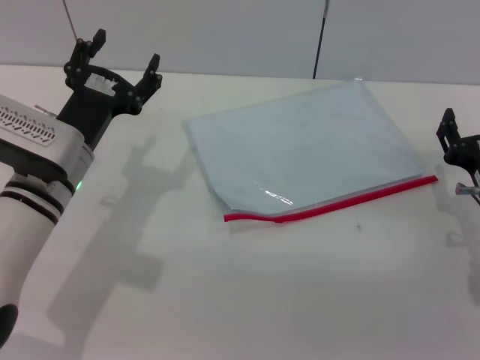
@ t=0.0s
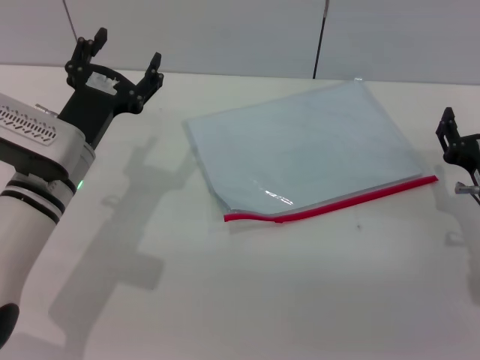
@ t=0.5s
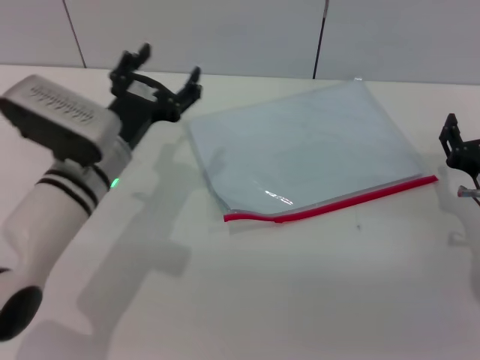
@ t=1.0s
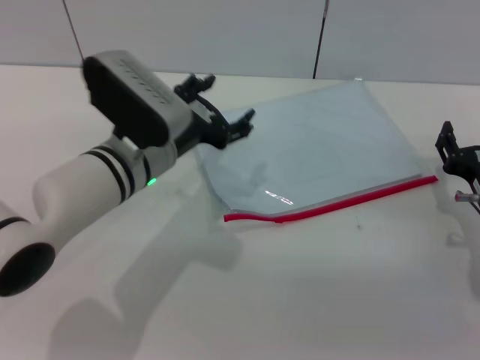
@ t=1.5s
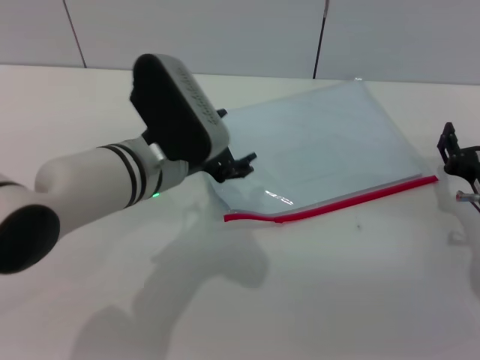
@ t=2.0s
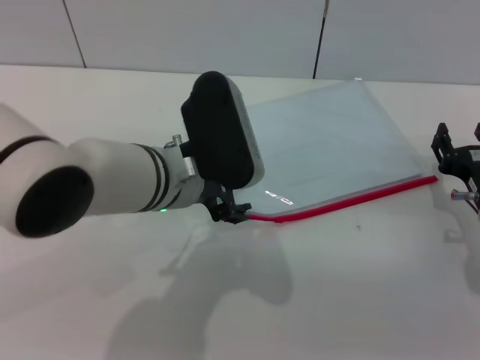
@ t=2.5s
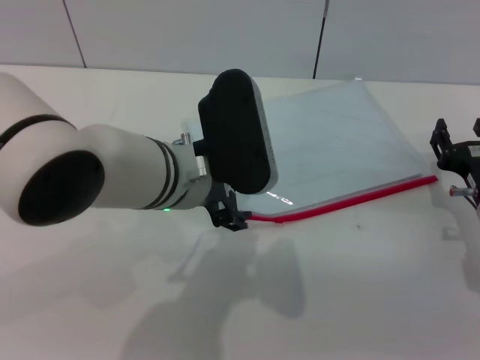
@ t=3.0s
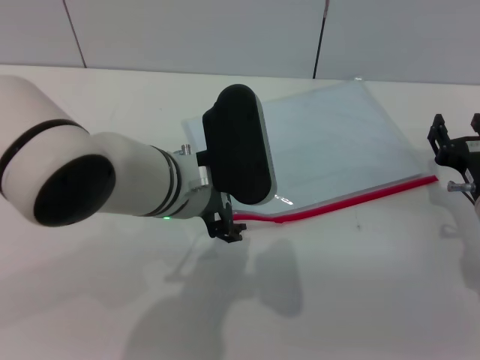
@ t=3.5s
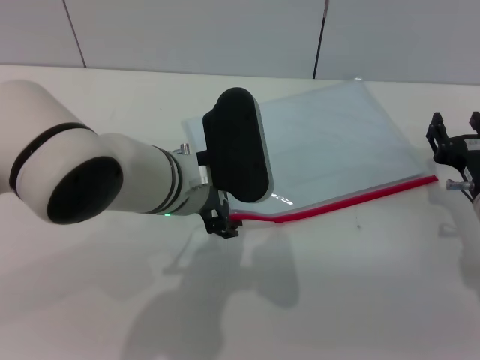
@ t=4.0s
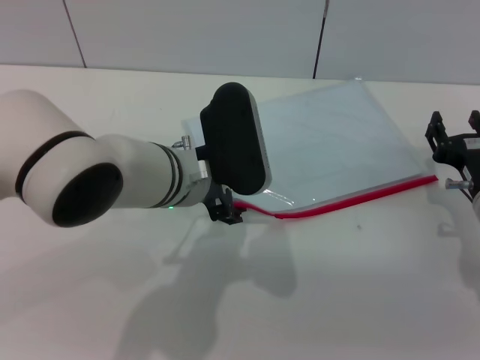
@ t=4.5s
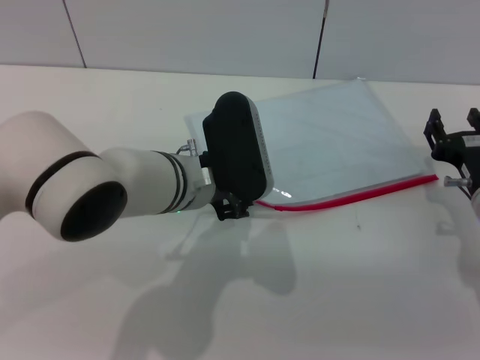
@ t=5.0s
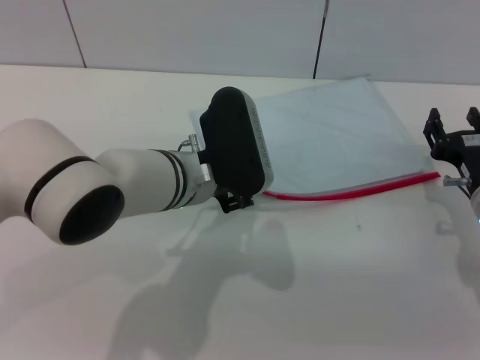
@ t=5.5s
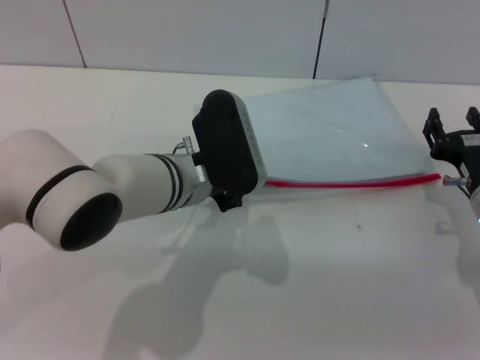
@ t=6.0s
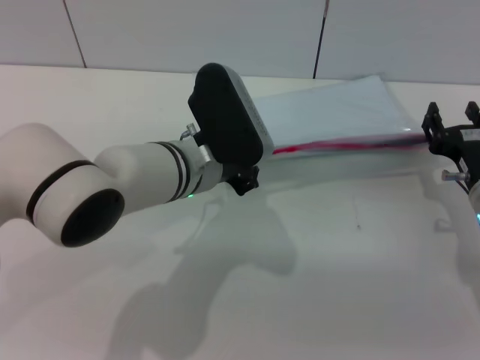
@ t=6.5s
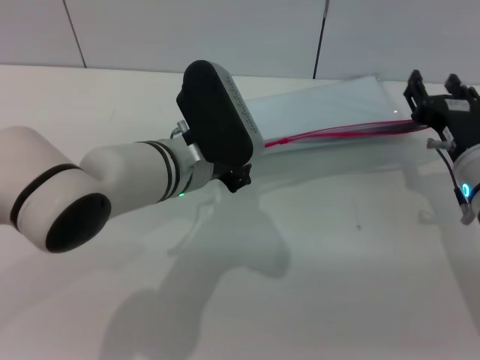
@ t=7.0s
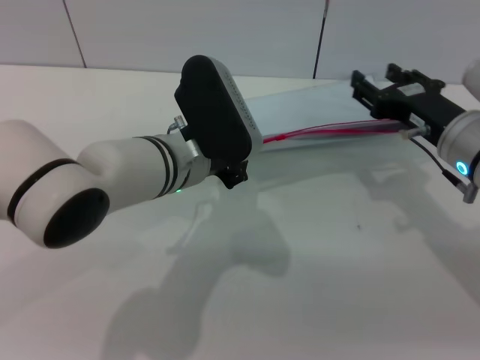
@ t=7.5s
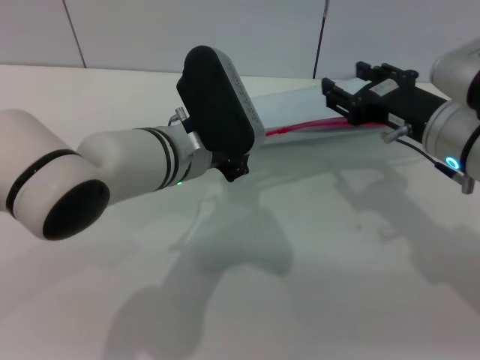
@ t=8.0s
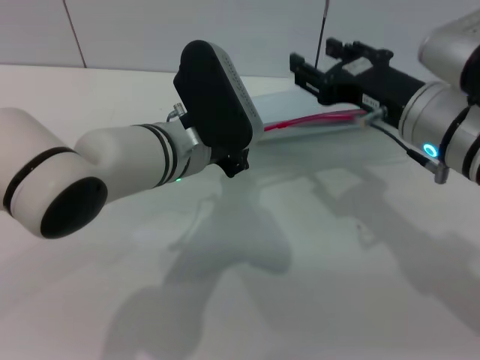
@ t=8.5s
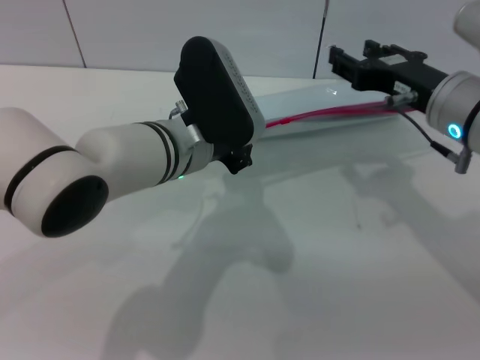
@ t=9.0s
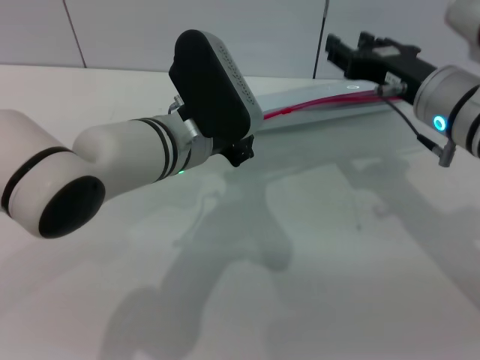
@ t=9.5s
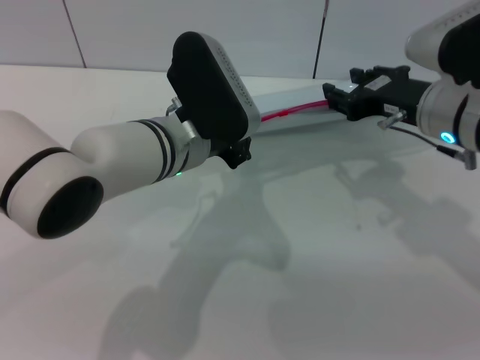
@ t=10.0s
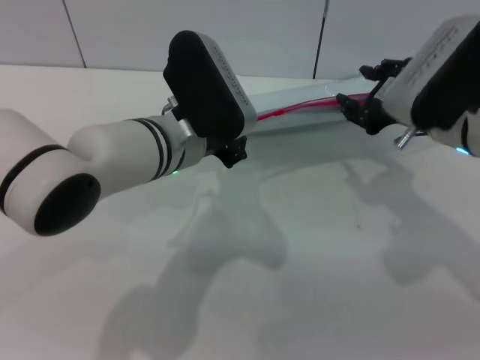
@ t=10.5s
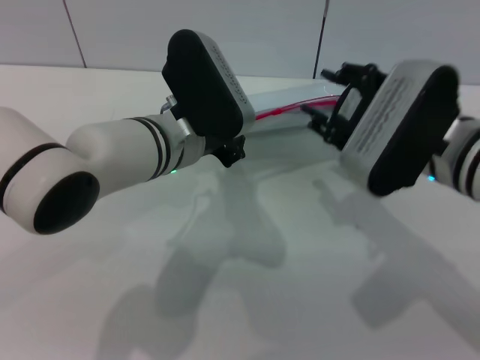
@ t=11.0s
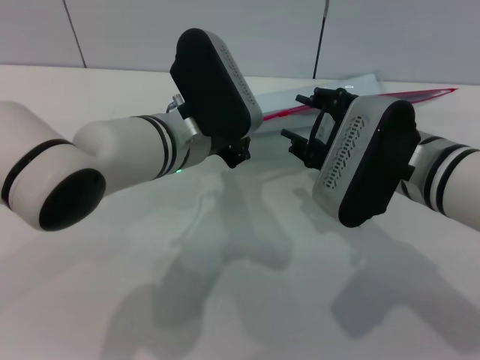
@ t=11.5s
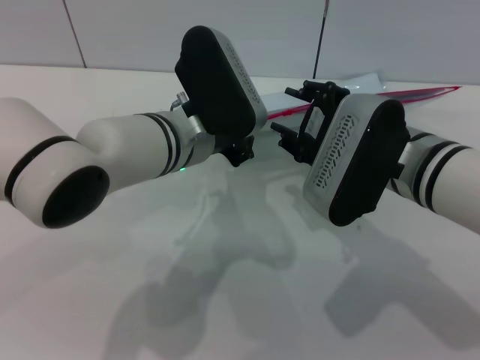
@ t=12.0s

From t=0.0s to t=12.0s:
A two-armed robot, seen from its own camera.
Step, from t=0.0s to t=7.0s: Pick up the transparent plastic bag with the left gripper.
From t=0.0s to t=2.0s: The left gripper is displaced to the right by roughly 10 cm.
From t=4.0s to t=6.0s: The left gripper closes its fingers.
From t=6.0s to t=8.0s: The right gripper moves upward and to the left, some 10 cm.
From t=8.0s to t=10.0s: The grippers stay close to where they were, moving slightly.
From t=10.0s to t=12.0s: The right gripper goes some 10 cm to the left and backward.

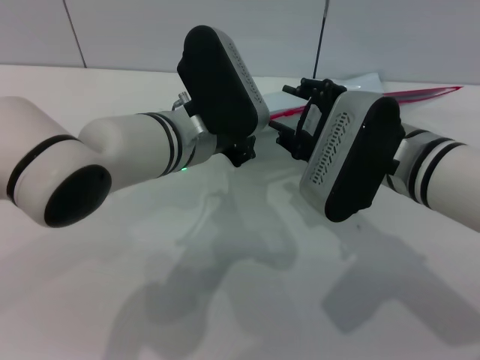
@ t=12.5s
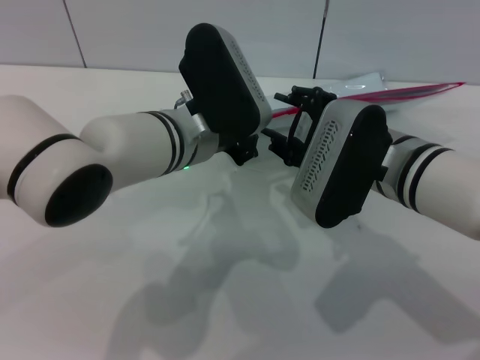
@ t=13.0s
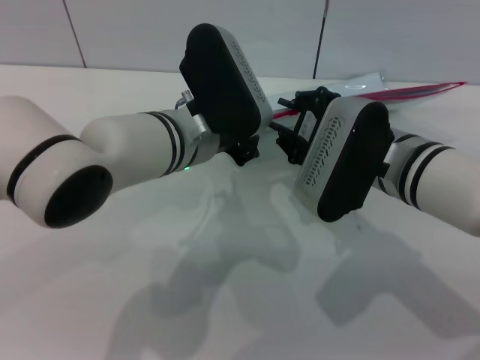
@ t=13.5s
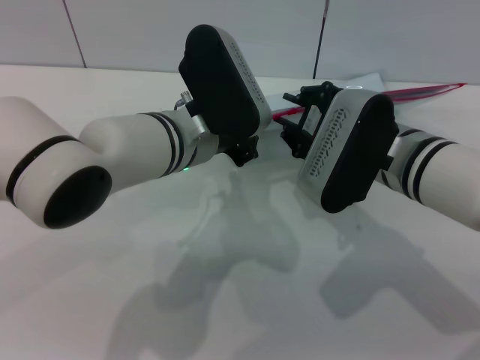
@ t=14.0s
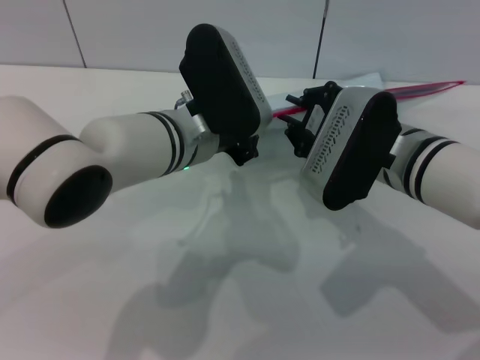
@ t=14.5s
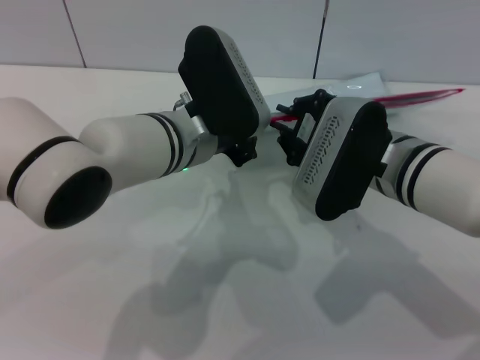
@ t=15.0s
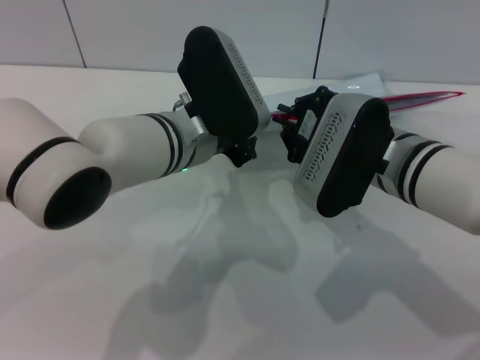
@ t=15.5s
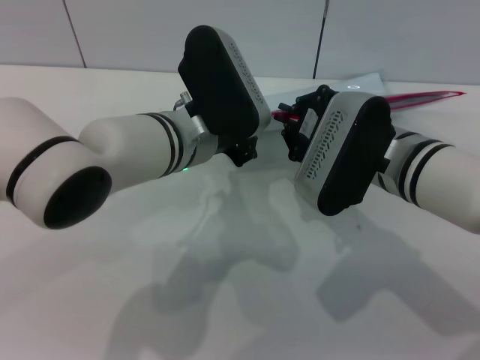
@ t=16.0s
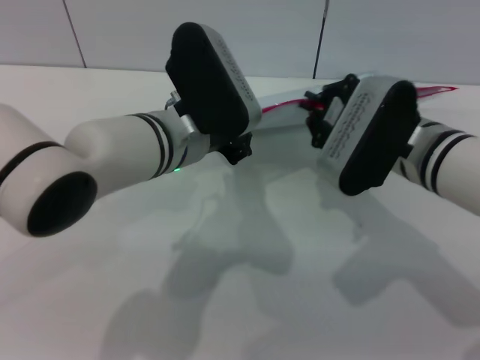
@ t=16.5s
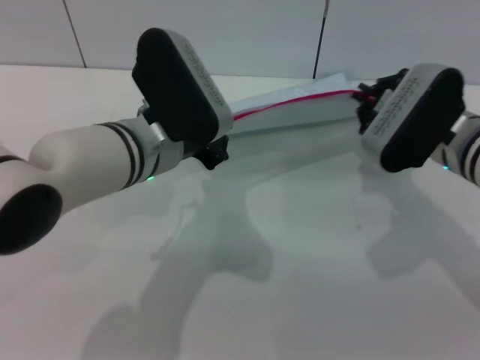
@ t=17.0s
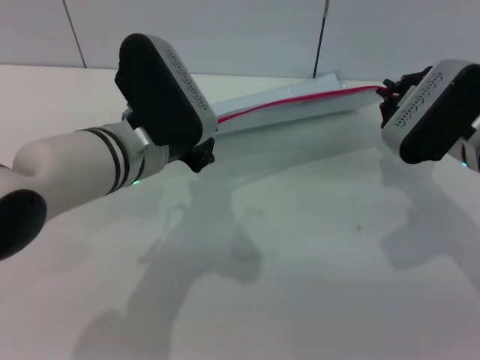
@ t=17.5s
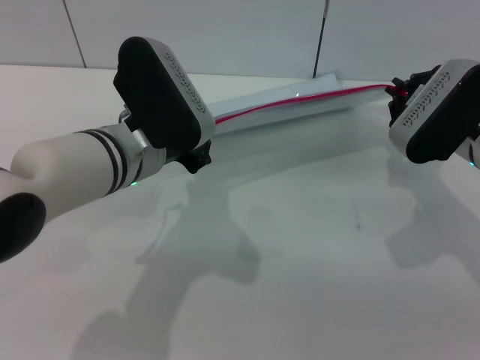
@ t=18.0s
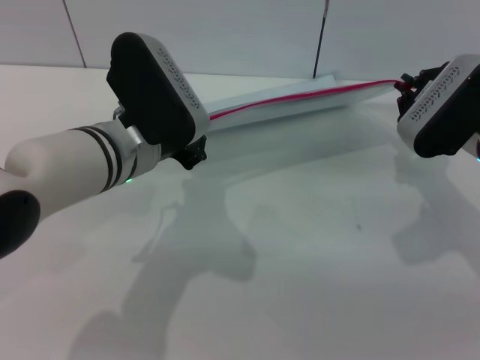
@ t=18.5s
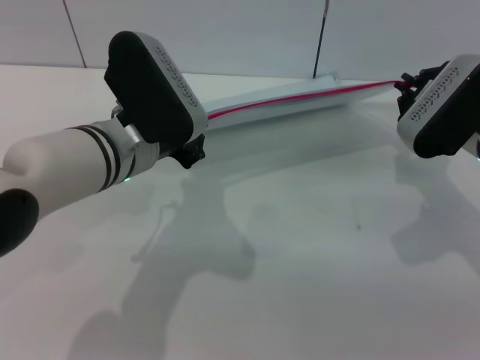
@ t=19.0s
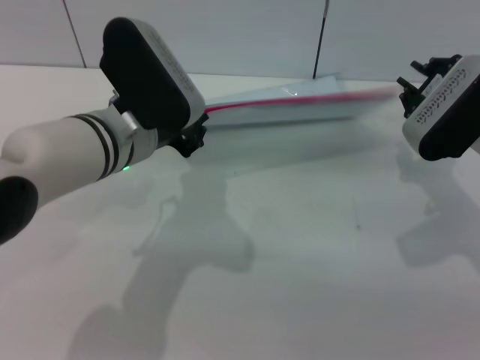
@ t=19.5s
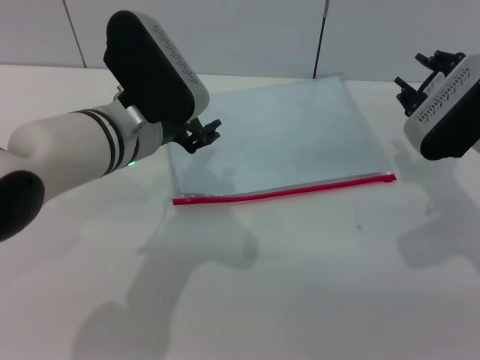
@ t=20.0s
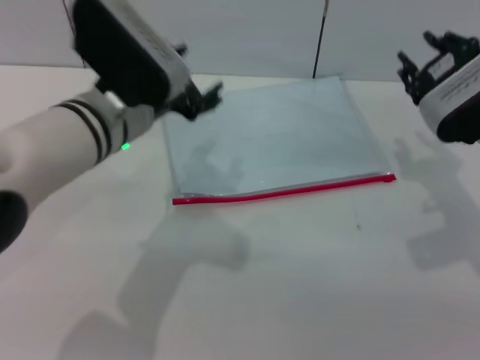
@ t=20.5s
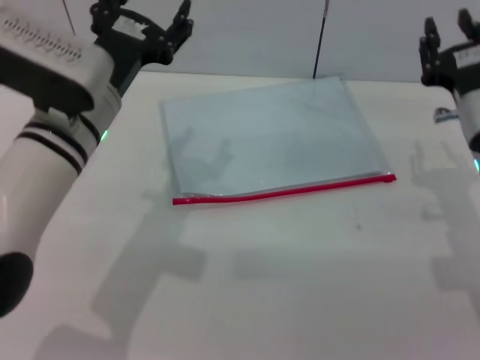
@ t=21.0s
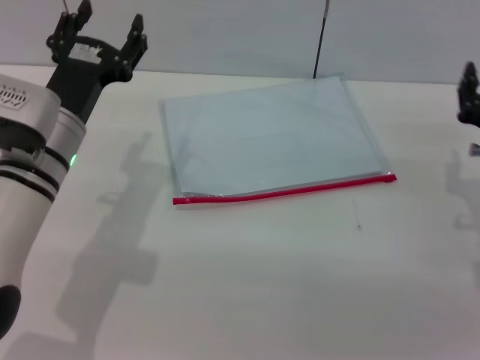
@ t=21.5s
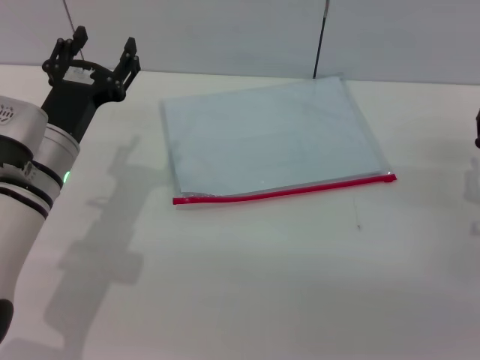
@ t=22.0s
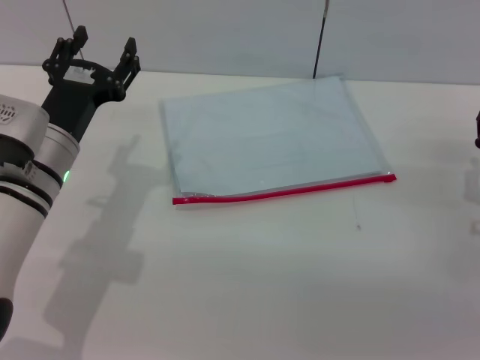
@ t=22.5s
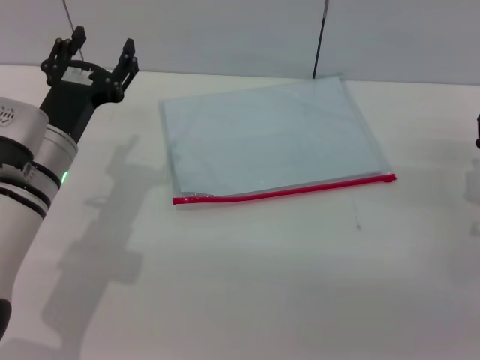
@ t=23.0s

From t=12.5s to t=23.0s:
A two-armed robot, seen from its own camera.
Step, from t=12.5s to t=19.5s: Pulling up the zipper on the transparent plastic bag with the right gripper to close it.
Step, from t=20.0s to t=20.5s: Place the transparent plastic bag.
From t=12.5s to t=14.5s: The right gripper closes.
From t=14.5s to t=16.5s: The grippers make only small movements.
From t=16.5s to t=19.0s: The right gripper heads to the right, covering some 10 cm.
From t=19.0s to t=21.0s: The right gripper opens. Meanwhile the left gripper opens its fingers.
From t=21.0s to t=23.0s: The right gripper travels to the right and downward by approximately 10 cm; the left gripper travels downward and to the left by about 10 cm.

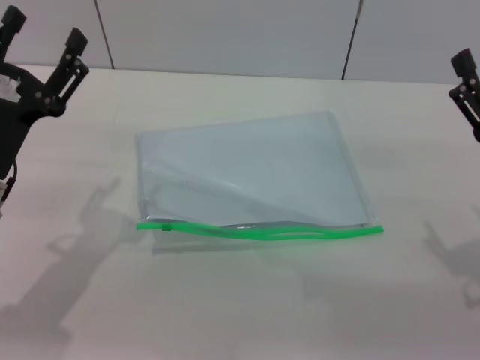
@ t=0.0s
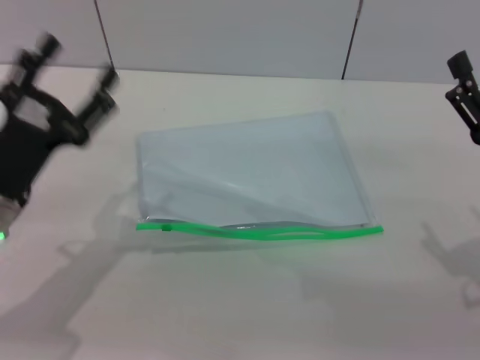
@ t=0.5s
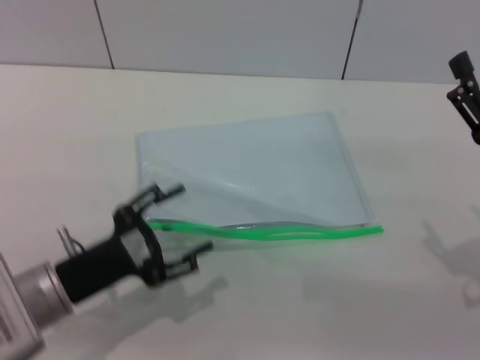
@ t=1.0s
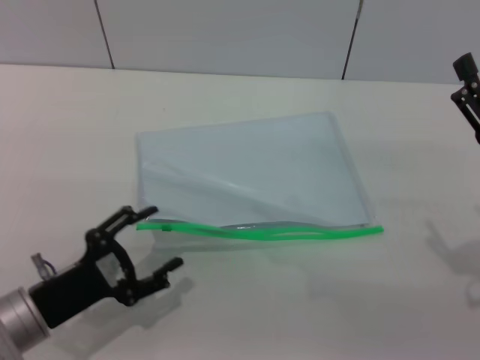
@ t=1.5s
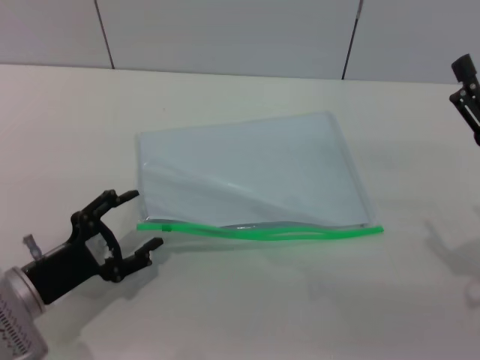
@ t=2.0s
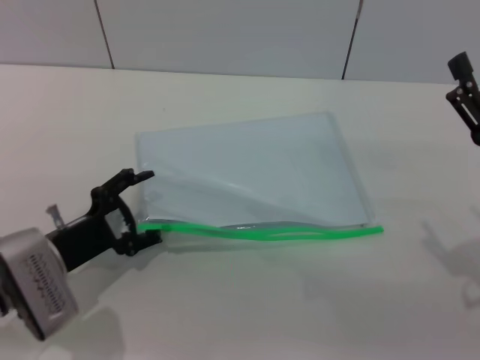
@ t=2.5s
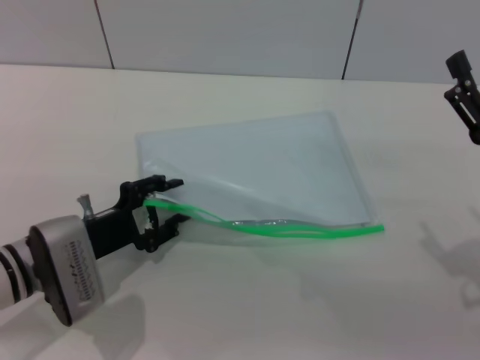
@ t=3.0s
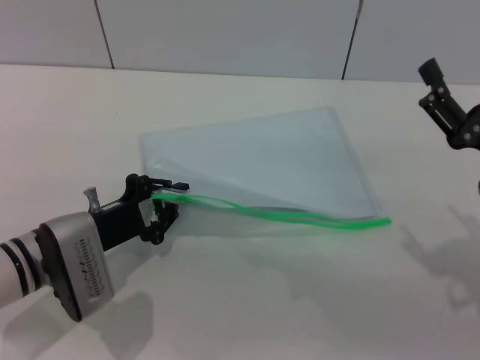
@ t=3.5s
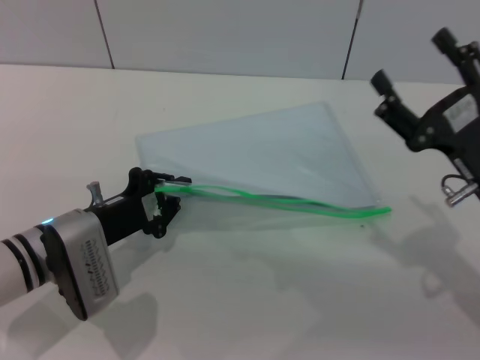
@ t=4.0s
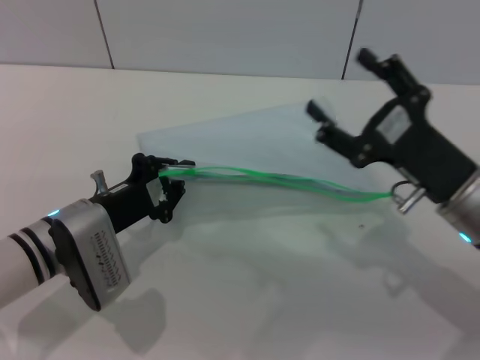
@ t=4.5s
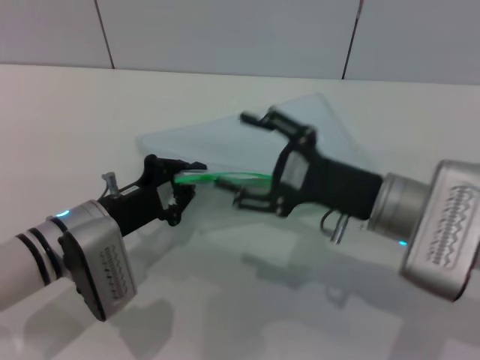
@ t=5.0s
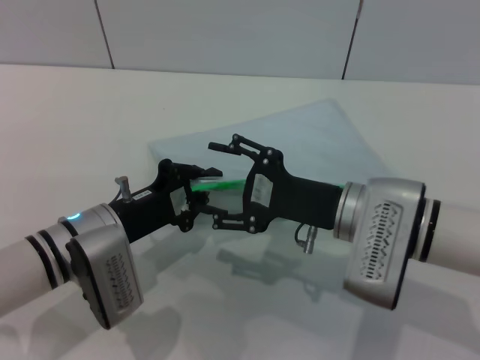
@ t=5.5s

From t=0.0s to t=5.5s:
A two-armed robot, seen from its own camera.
Step, from t=0.0s to t=4.0s: Pick up the transparent plastic bag with the left gripper.
From t=0.0s to t=2.0s: The left gripper is displaced downward by some 10 cm.
From t=2.0s to t=3.5s: The left gripper goes some 5 cm forward, and closes.
From t=3.5s to t=5.5s: The right gripper moves to the left, approximately 15 cm.
